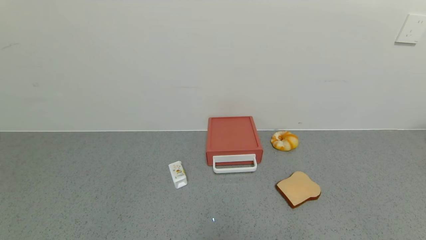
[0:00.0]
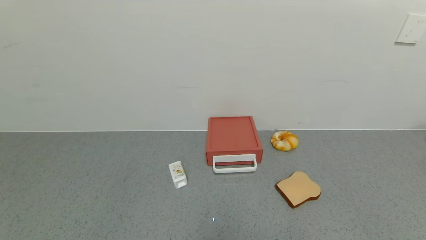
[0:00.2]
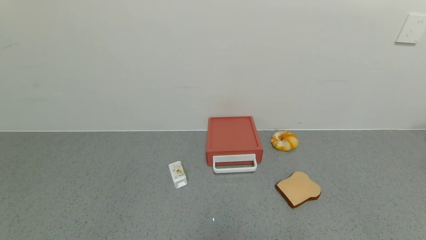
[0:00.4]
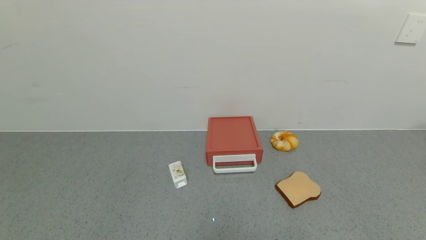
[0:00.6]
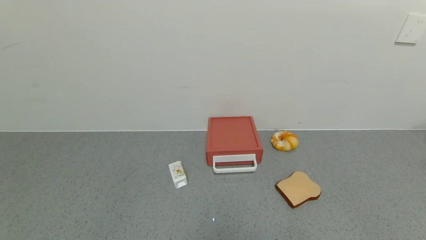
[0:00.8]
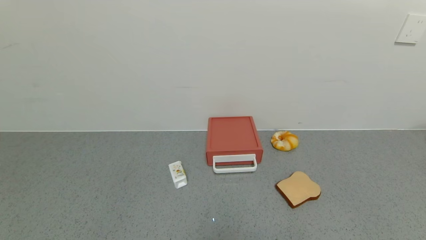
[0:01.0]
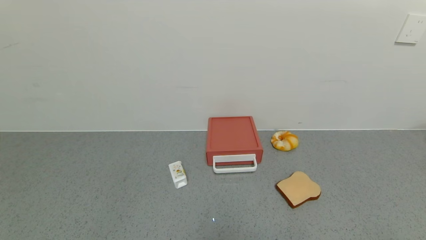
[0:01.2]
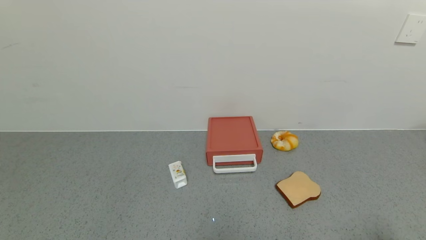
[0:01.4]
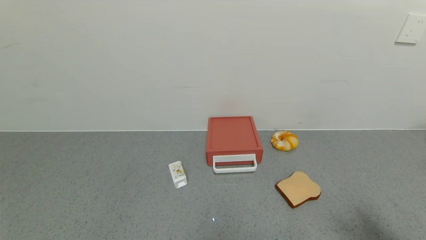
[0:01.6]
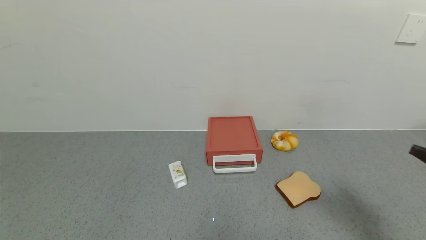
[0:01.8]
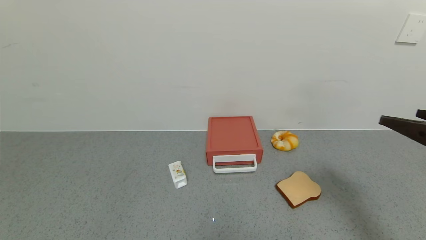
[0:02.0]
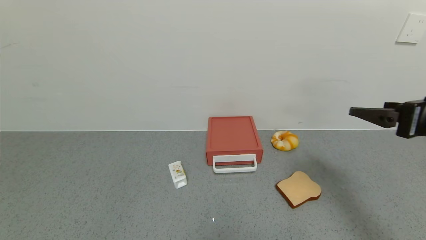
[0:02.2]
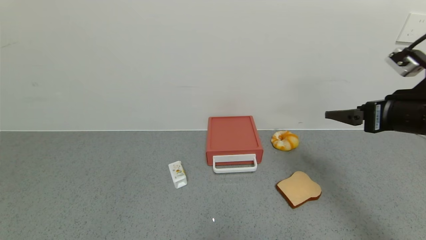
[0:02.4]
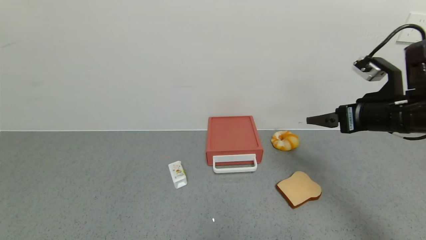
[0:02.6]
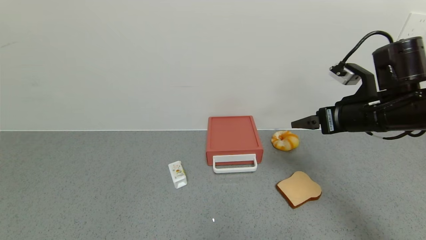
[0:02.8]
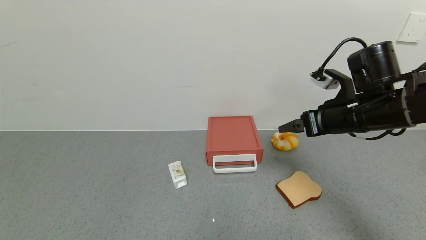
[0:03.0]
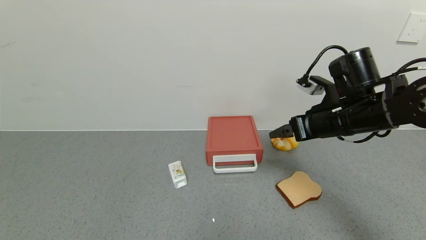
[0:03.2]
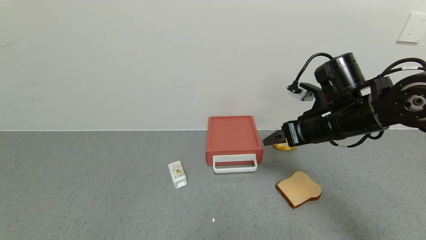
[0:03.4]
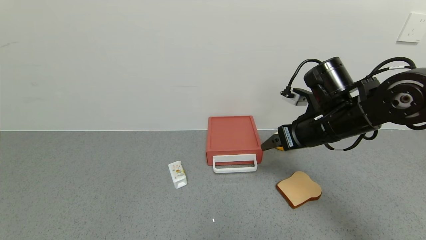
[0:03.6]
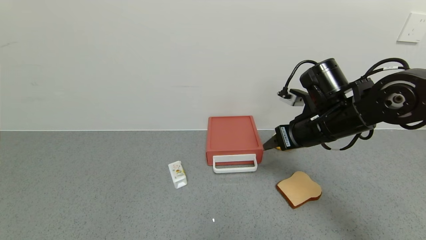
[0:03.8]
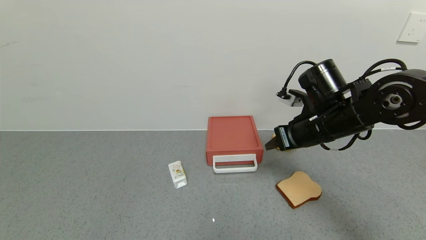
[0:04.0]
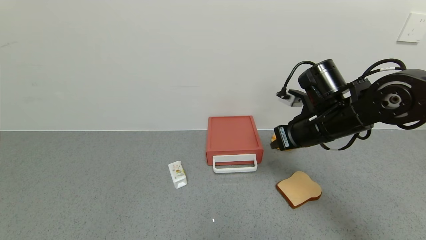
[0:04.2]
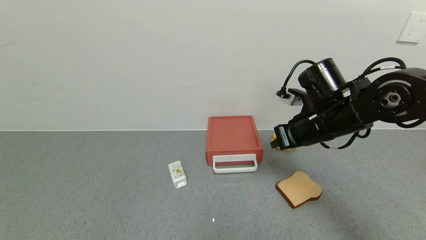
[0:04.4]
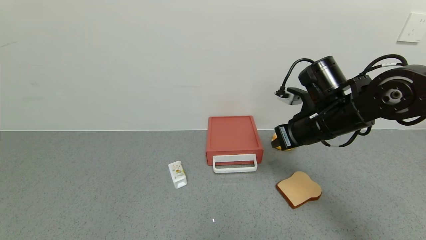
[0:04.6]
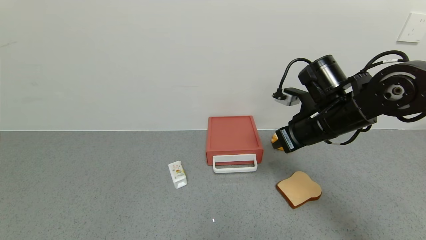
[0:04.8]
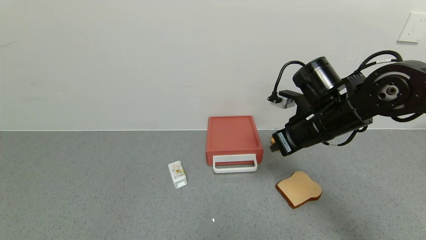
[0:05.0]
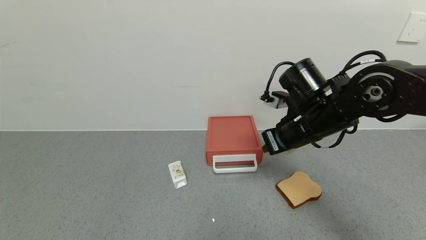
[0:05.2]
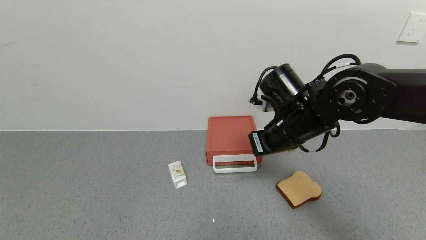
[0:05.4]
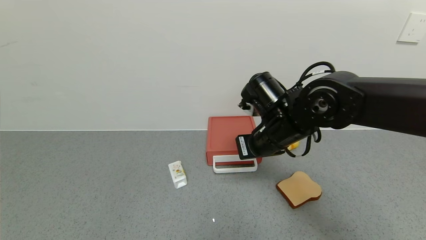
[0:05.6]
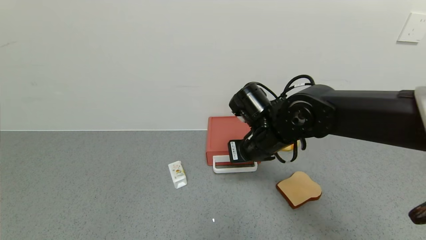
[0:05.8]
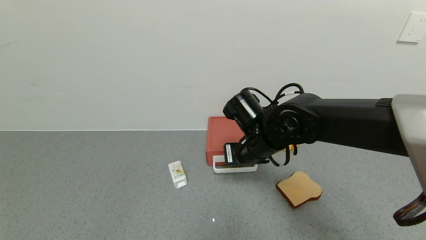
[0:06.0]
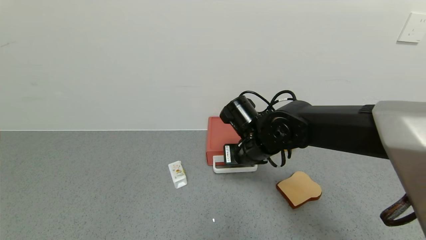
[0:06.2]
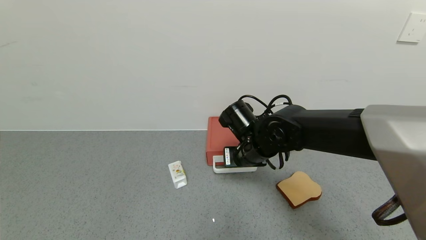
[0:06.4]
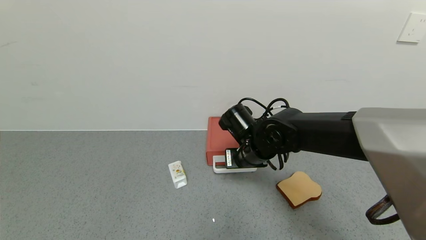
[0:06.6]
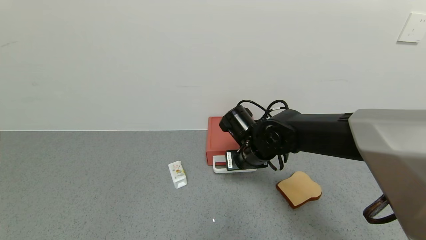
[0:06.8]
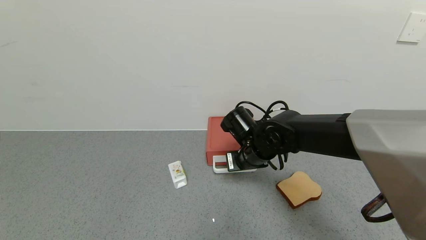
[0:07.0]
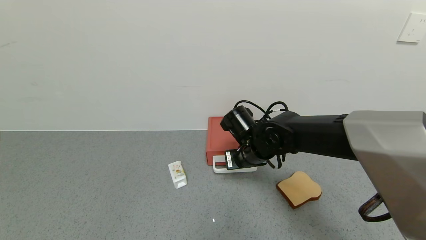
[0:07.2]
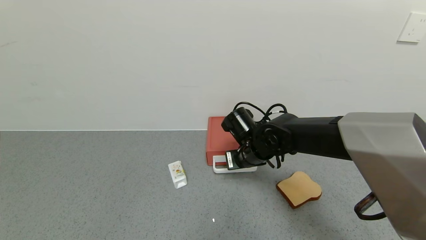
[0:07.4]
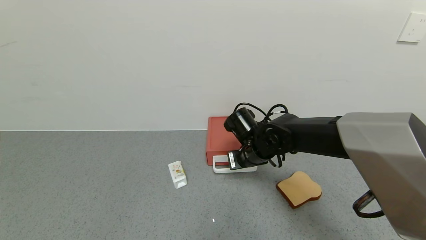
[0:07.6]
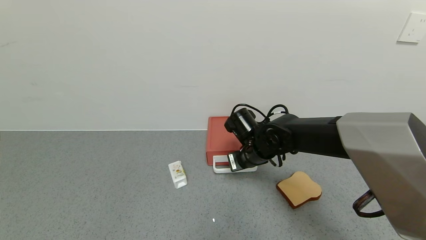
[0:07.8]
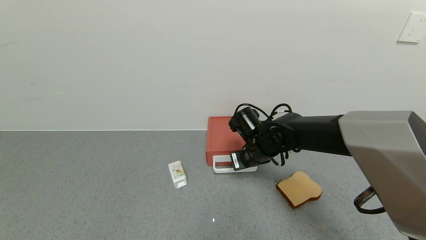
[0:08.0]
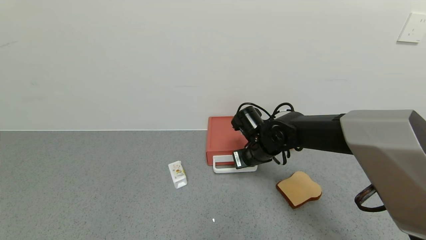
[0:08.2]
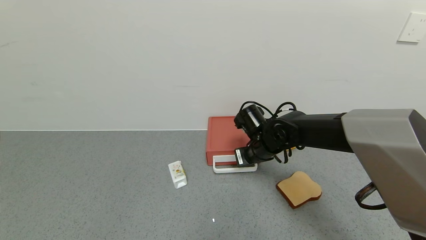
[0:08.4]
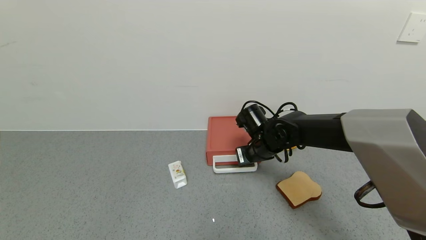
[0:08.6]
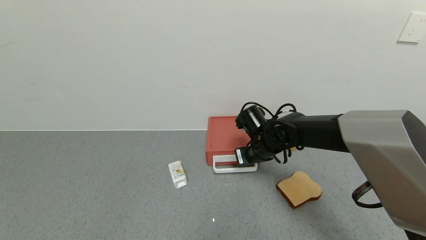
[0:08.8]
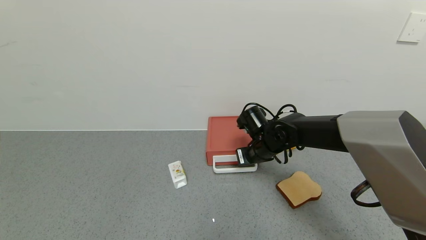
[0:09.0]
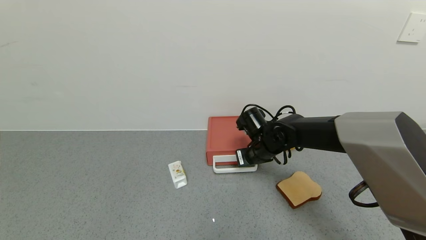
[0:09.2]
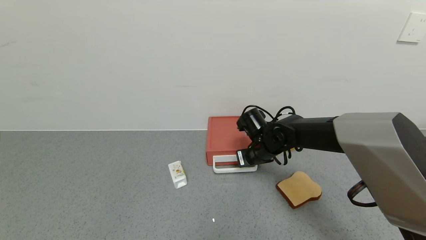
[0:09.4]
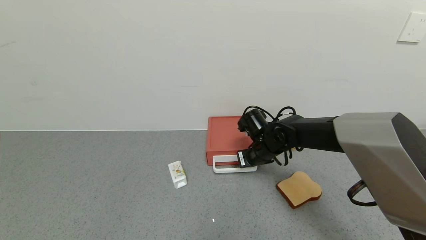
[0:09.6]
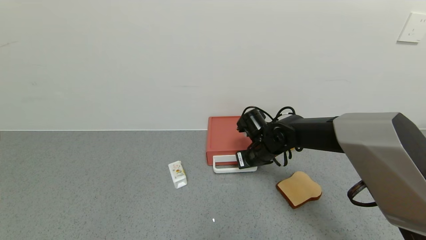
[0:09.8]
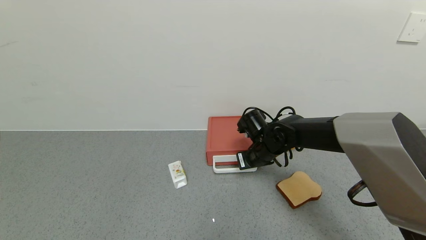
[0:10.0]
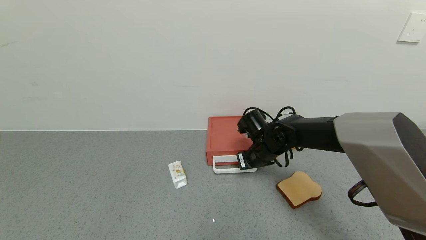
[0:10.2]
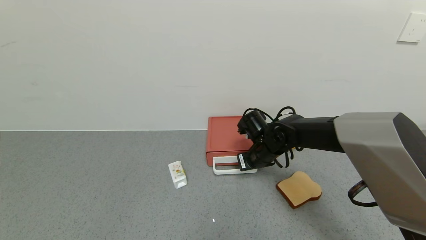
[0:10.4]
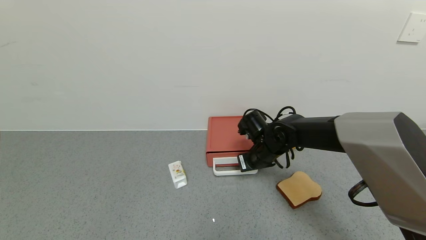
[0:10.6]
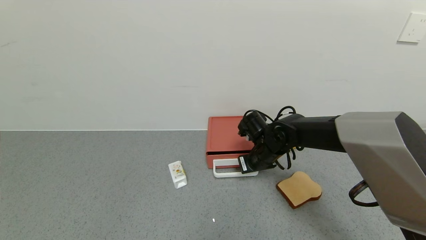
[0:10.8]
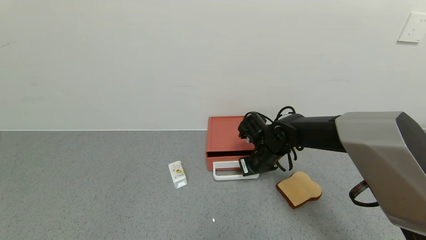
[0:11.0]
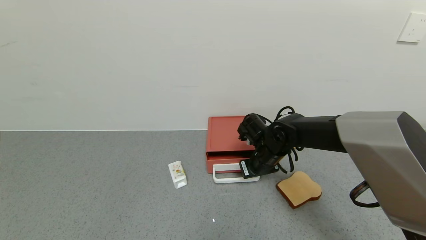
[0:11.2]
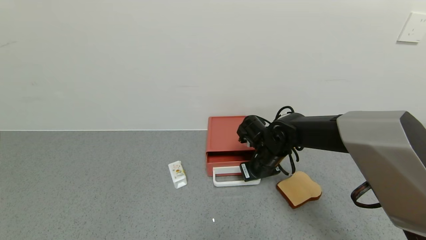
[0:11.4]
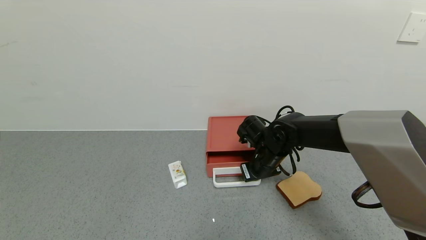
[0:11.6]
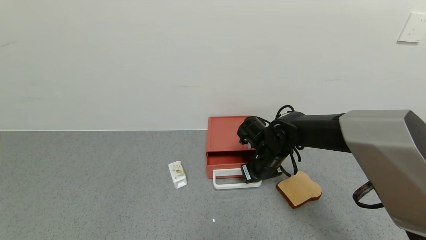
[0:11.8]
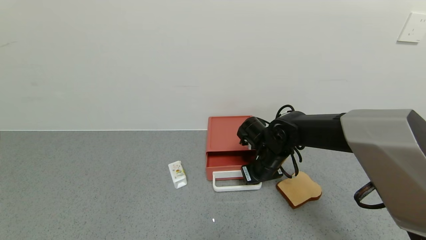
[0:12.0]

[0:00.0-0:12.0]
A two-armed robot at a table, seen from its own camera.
Task of the whole recording: use the gripper to open the drawer and close the red drawer.
0:00.0 to 0:01.6: The right gripper heads upward and forward, covering approximately 15 cm.
0:01.6 to 0:03.0: The right gripper is displaced forward and to the left by about 30 cm.
0:03.0 to 0:04.4: The right gripper is displaced to the left by some 5 cm, and closes up.
0:04.4 to 0:06.0: The right gripper goes roughly 10 cm to the left.
0:06.0 to 0:07.6: The right gripper is displaced downward by some 5 cm.
0:07.6 to 0:12.0: The grippers make only small movements.

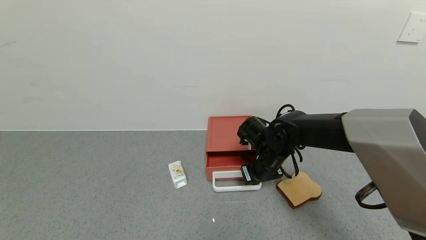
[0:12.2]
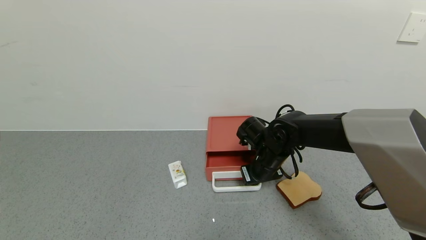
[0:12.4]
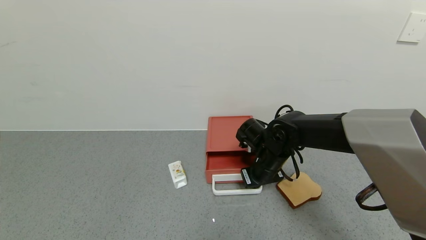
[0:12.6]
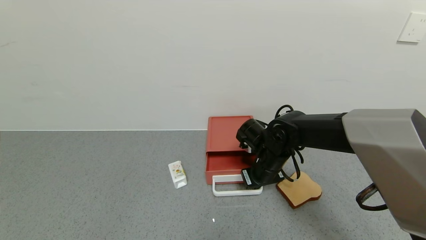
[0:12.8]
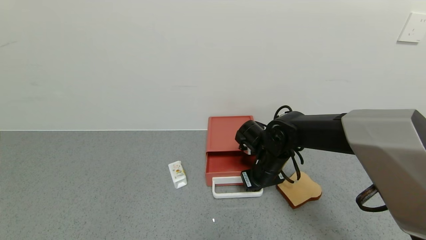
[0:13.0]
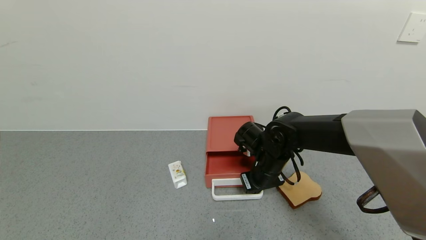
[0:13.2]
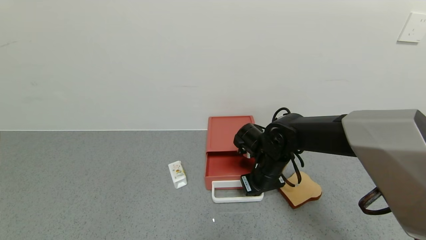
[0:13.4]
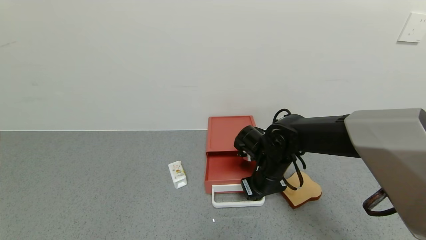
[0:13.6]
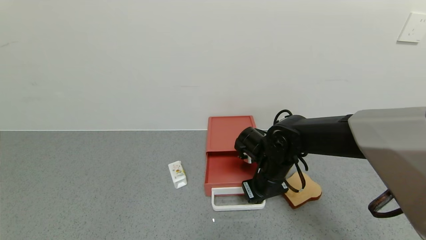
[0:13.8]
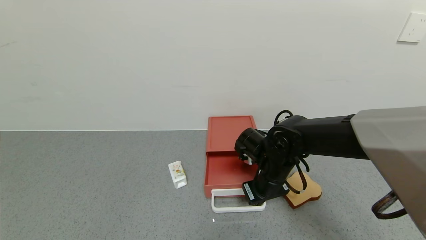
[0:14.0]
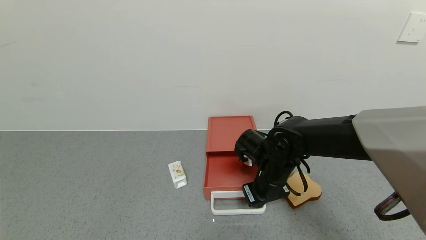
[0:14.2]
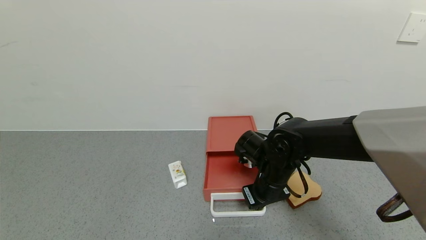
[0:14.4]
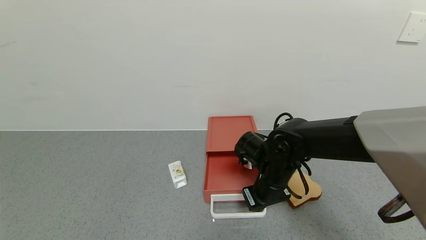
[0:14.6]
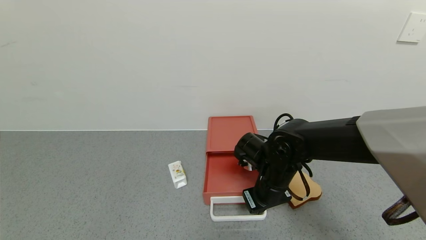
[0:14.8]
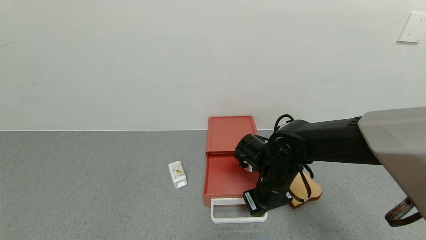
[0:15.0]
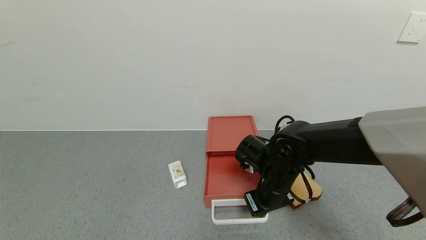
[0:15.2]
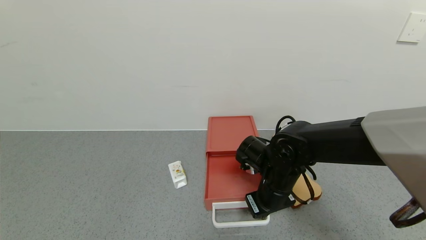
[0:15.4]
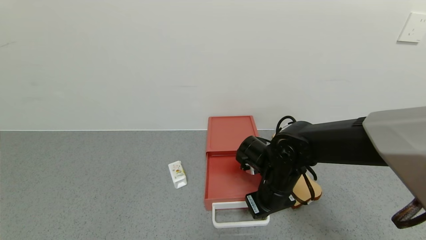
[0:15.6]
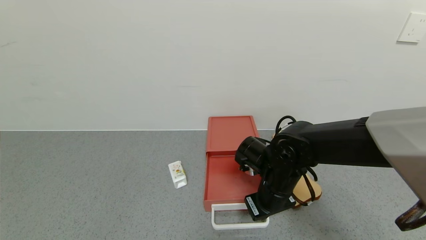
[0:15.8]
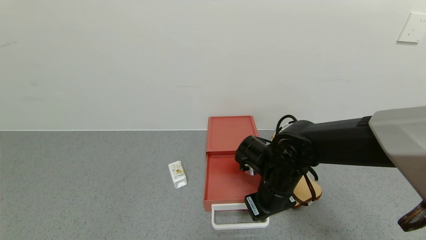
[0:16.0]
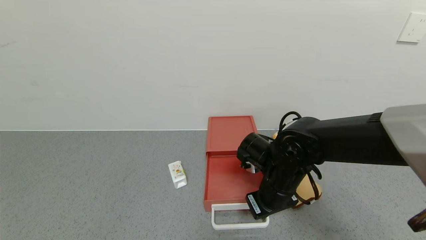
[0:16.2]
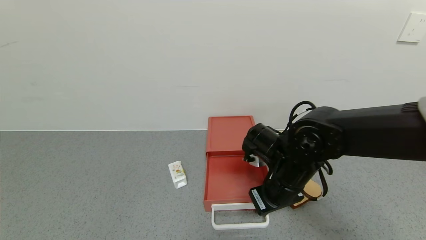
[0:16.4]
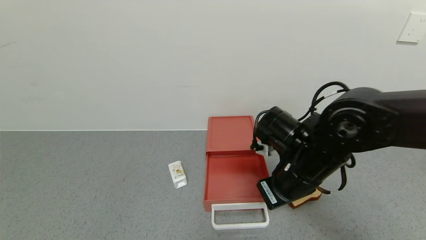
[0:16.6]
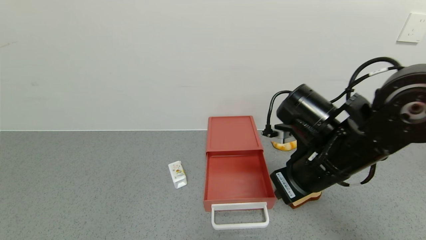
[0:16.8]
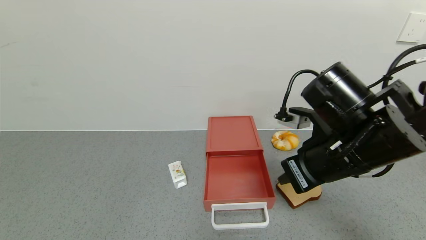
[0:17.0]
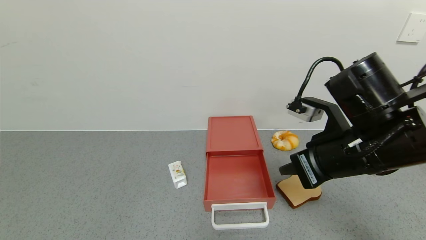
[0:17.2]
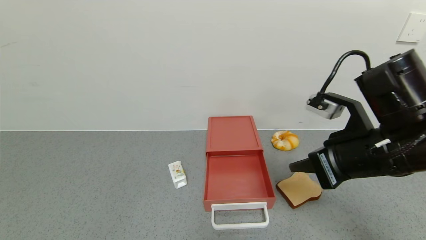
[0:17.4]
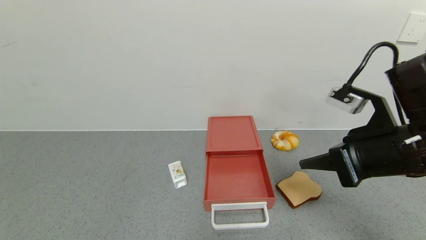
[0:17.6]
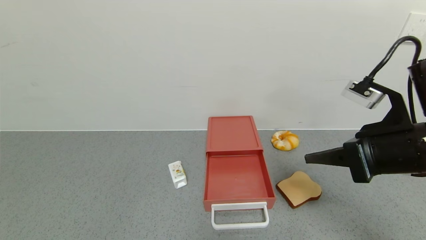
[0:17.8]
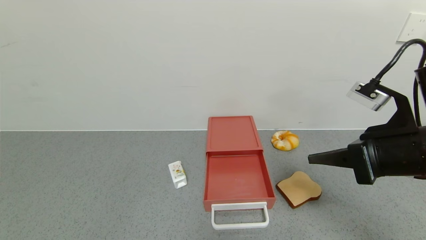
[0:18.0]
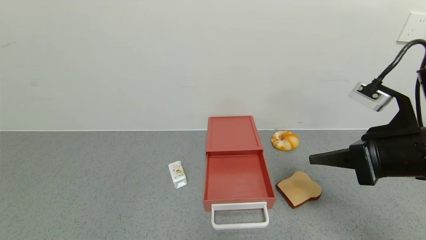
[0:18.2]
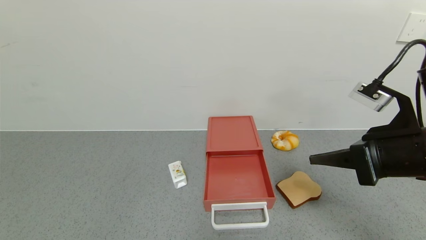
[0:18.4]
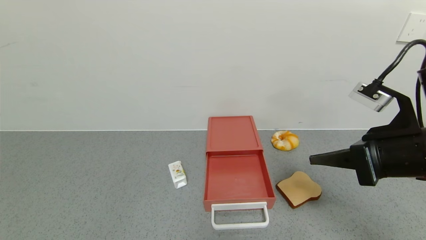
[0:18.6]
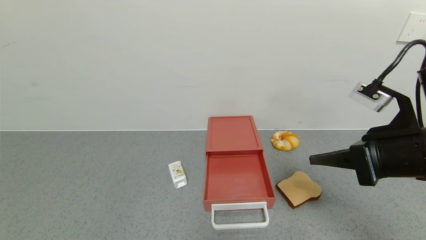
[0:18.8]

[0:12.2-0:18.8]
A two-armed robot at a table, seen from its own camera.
Task of the whole recording: use the gripper to open the drawer and close the red drawer.
Step, 0:12.2 to 0:16.4: Open the red drawer with the right gripper.
0:12.2 to 0:13.8: The grippers stay close to where they were, moving slightly.
0:13.8 to 0:15.4: The grippers move only a little.
0:15.4 to 0:17.2: The right gripper heads upward, to the right and backward, covering roughly 20 cm.
0:17.2 to 0:18.8: The right gripper heads to the right, covering some 5 cm.
